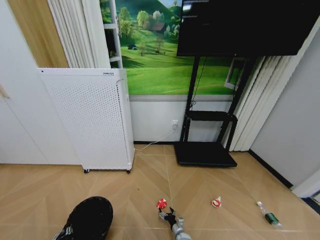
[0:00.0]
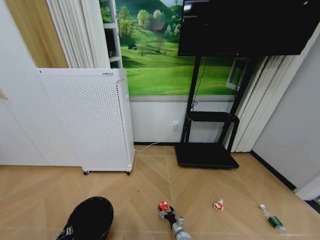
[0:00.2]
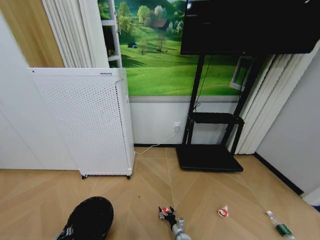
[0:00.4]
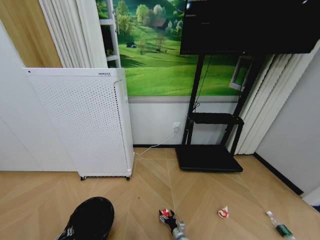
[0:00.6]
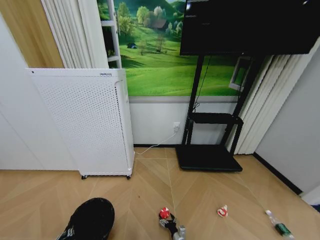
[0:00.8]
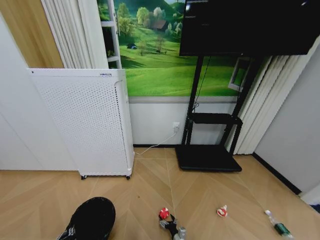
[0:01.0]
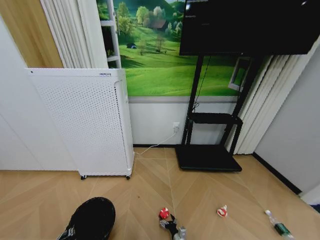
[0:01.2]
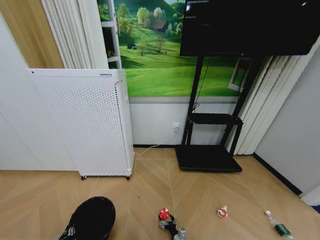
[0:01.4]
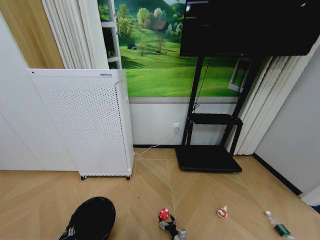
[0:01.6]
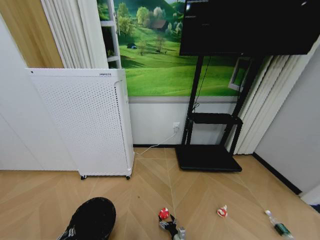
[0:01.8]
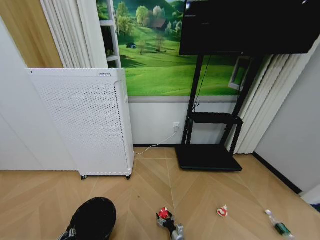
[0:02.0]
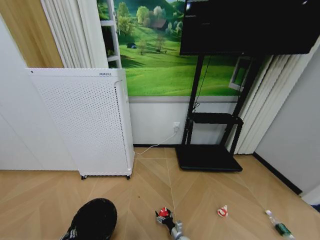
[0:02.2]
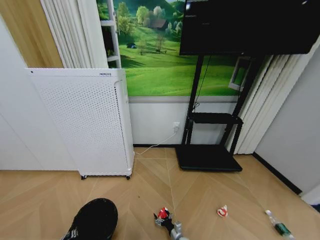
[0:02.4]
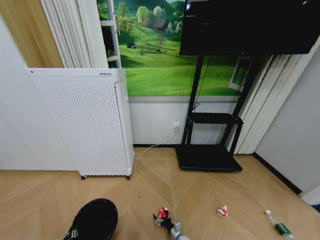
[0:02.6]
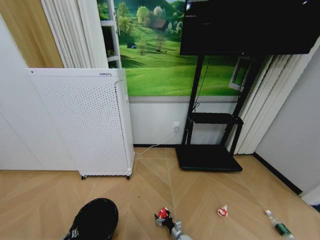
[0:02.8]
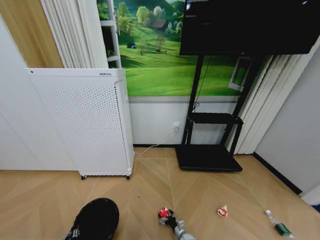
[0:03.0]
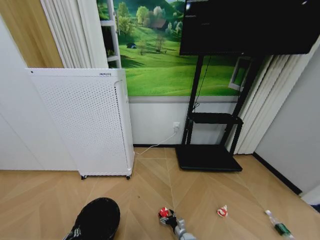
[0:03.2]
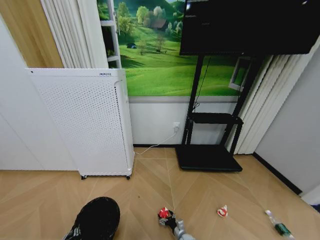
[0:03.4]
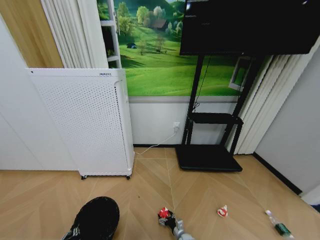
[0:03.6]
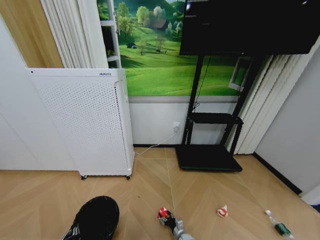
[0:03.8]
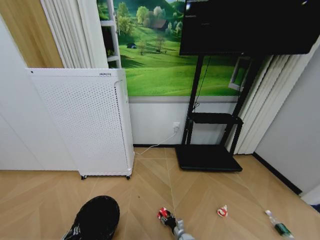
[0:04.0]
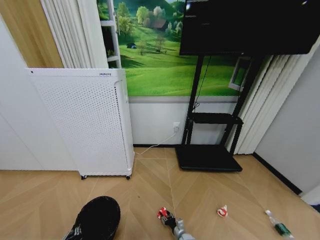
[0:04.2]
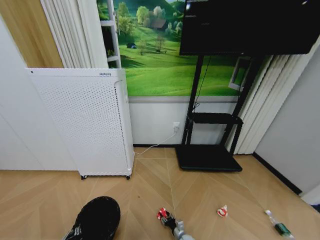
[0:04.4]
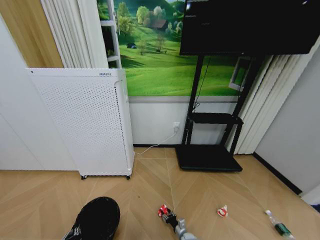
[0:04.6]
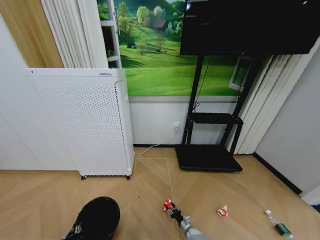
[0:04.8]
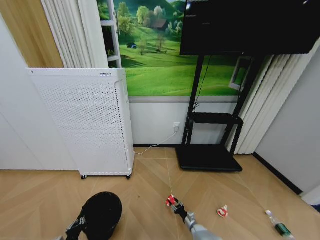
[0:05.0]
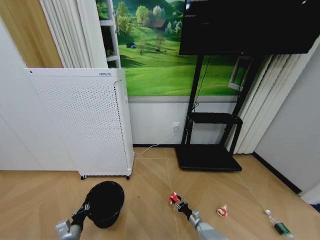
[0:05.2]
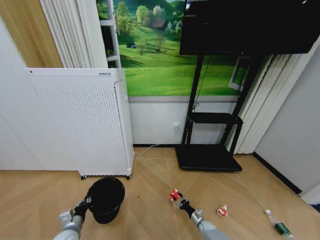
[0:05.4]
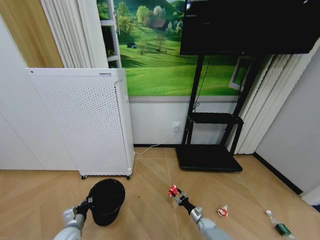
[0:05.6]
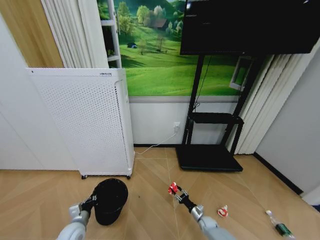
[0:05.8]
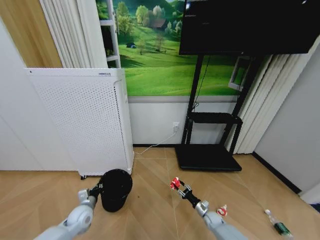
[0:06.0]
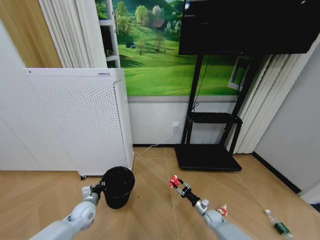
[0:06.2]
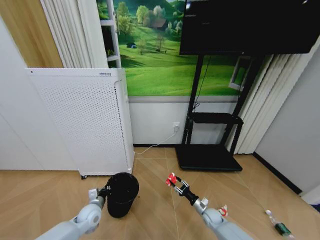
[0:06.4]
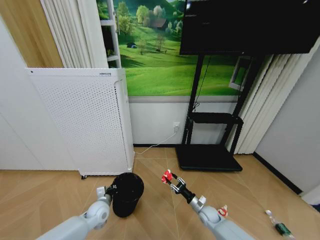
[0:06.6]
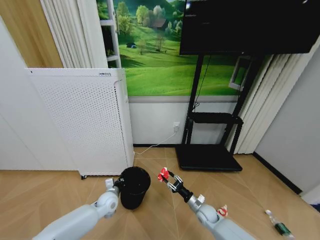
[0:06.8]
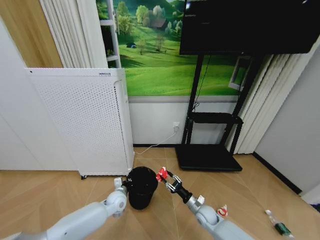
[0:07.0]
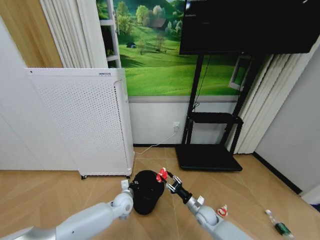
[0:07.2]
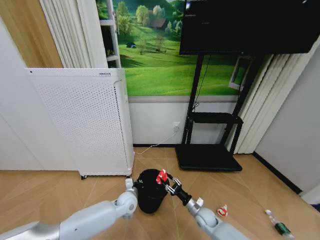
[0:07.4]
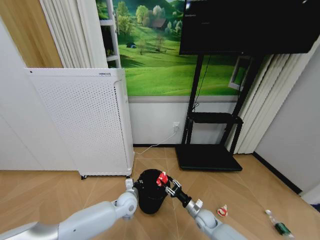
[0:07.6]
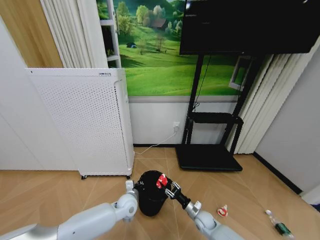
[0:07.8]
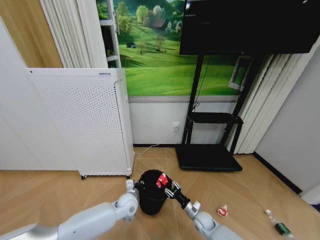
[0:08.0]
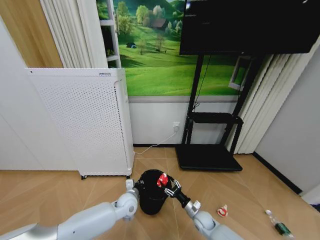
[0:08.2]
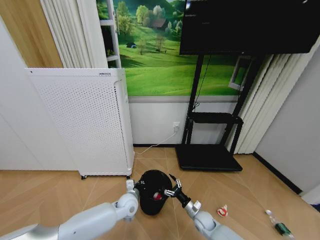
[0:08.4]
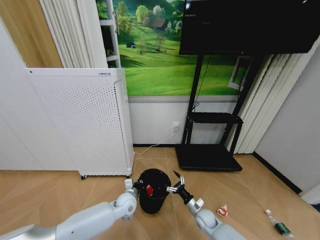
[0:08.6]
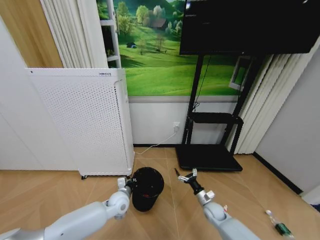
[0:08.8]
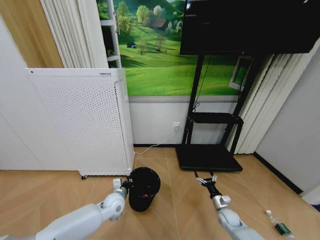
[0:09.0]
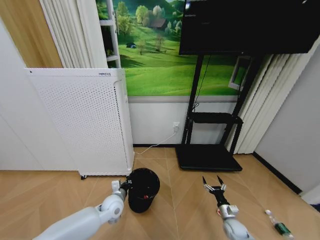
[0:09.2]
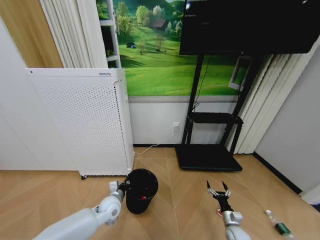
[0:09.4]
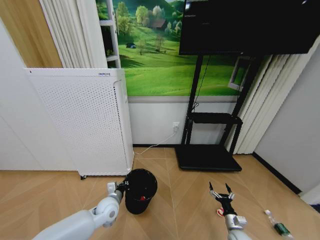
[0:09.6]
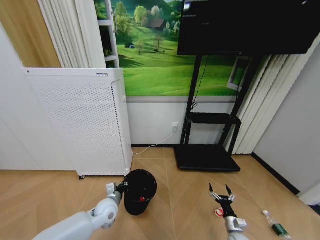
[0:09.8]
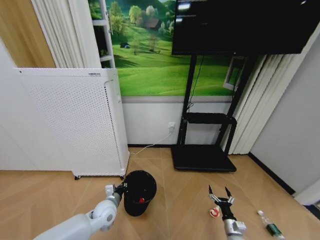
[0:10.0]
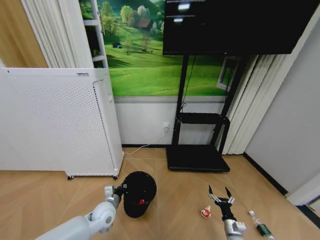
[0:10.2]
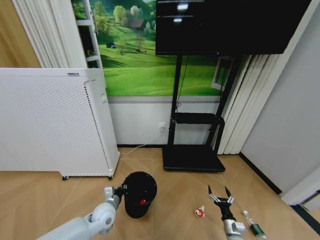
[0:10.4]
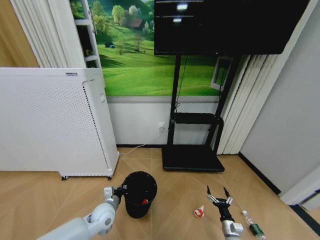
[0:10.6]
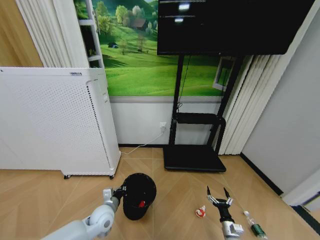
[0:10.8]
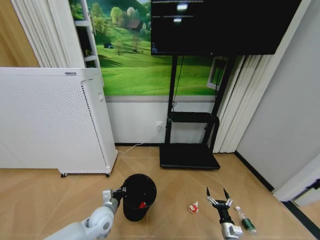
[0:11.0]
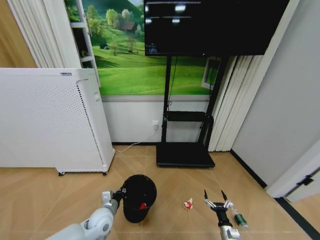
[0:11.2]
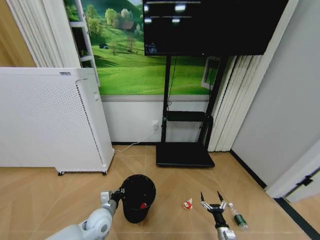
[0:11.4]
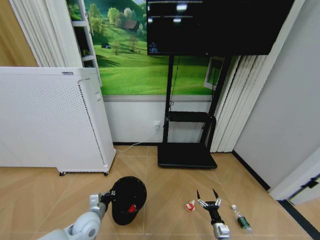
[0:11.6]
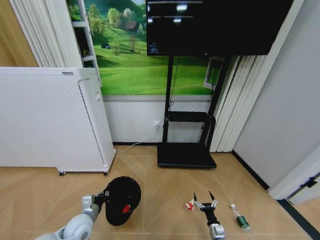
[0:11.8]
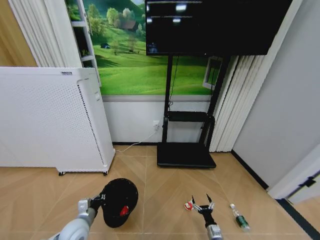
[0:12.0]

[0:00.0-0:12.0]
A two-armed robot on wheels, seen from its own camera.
Task of the whole recording: Pick up the trash bin and place the garbage on the floor into it.
0:00.0 to 0:01.6: The right gripper heads backward, covering some 5 cm.
0:01.6 to 0:03.0: The right gripper heads forward, covering roughly 5 cm.
0:04.4 to 0:06.0: The left gripper moves forward, approximately 20 cm. Meanwhile the right gripper heads to the right, upward and forward, covering about 20 cm.
0:06.0 to 0:07.6: The right gripper is displaced upward and to the left by approximately 10 cm. Meanwhile the left gripper shifts approximately 20 cm to the right.
0:07.6 to 0:09.0: The right gripper moves to the right, approximately 10 cm, and opens. Meanwhile the left gripper goes roughly 5 cm to the left.
0:09.0 to 0:10.4: The right gripper moves backward, roughly 10 cm. Meanwhile the left gripper shifts by roughly 5 cm.
0:10.4 to 0:12.0: The right gripper heads downward and to the left, covering approximately 10 cm; the left gripper heads to the left and backward, covering about 10 cm.

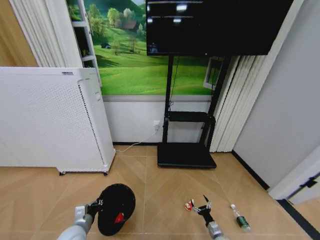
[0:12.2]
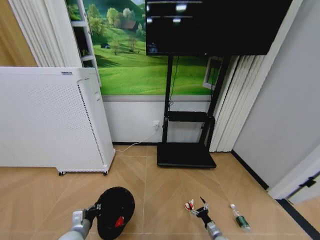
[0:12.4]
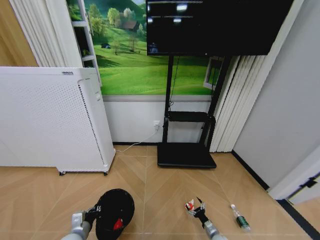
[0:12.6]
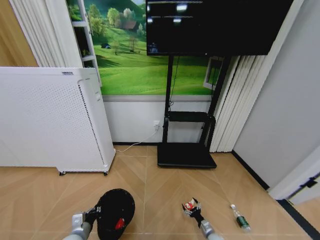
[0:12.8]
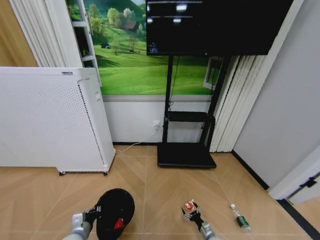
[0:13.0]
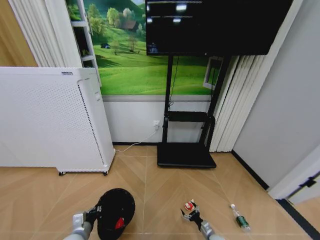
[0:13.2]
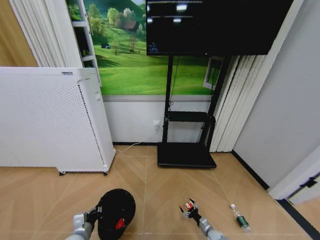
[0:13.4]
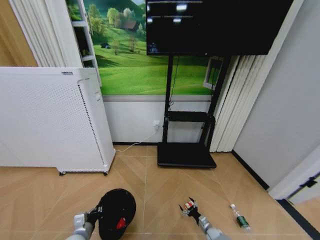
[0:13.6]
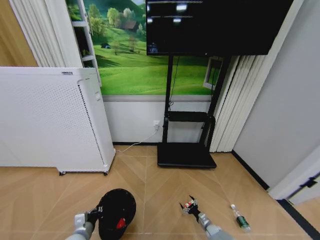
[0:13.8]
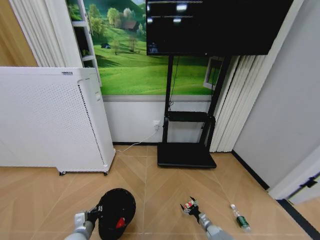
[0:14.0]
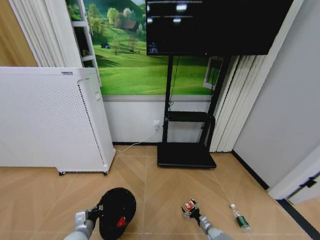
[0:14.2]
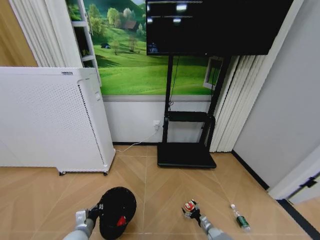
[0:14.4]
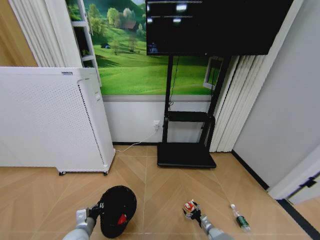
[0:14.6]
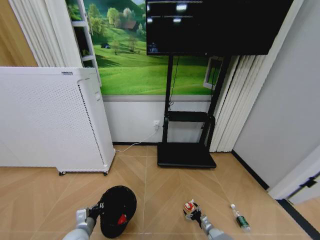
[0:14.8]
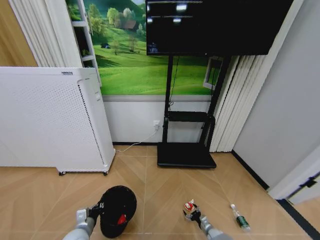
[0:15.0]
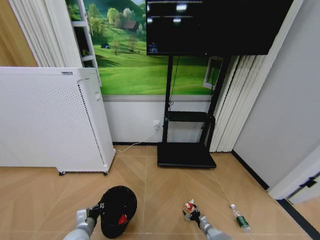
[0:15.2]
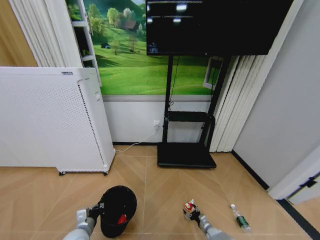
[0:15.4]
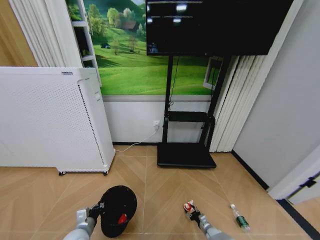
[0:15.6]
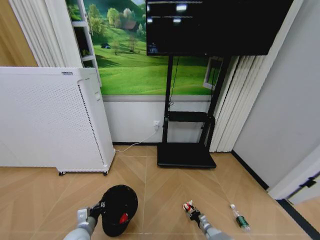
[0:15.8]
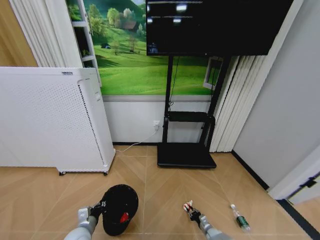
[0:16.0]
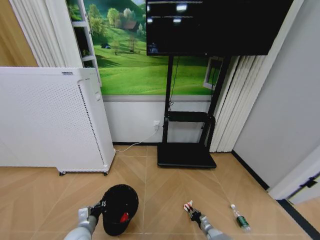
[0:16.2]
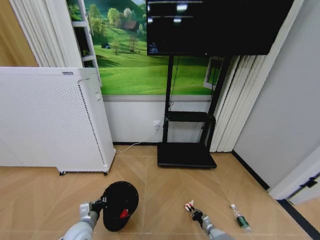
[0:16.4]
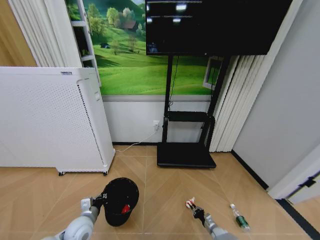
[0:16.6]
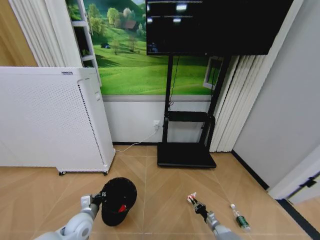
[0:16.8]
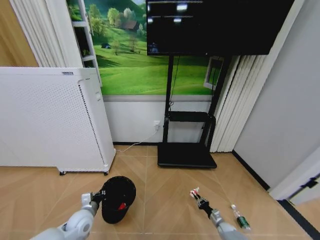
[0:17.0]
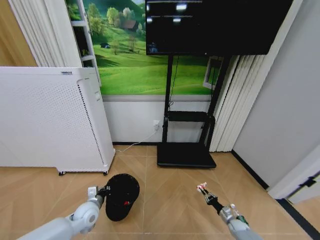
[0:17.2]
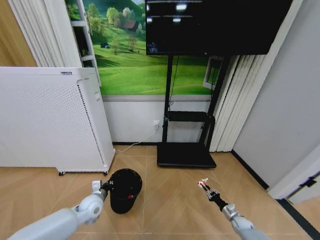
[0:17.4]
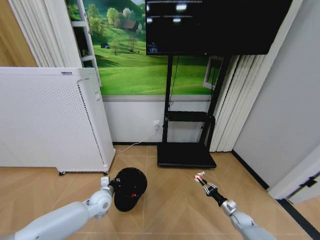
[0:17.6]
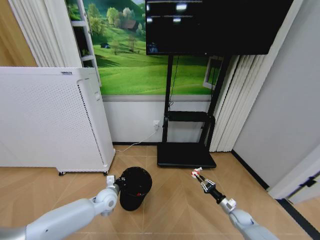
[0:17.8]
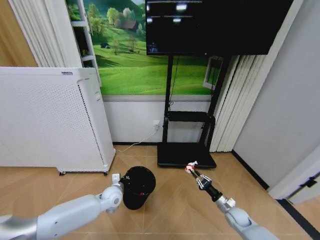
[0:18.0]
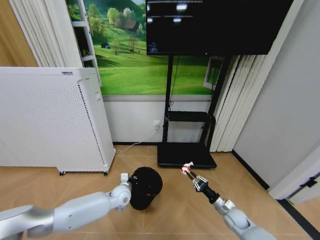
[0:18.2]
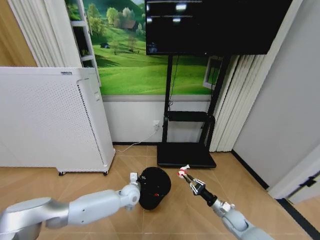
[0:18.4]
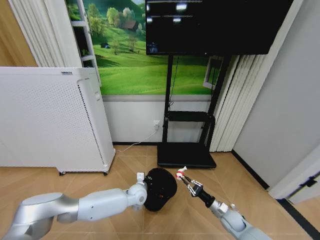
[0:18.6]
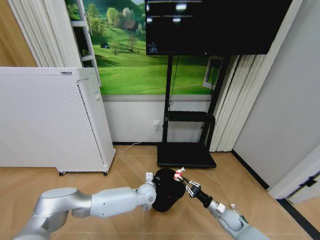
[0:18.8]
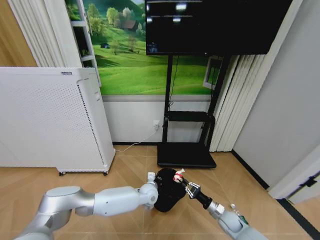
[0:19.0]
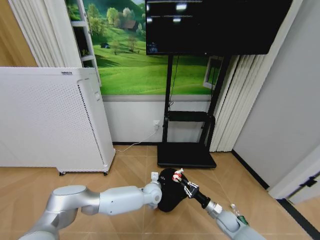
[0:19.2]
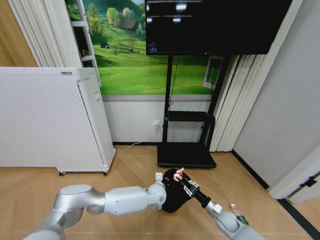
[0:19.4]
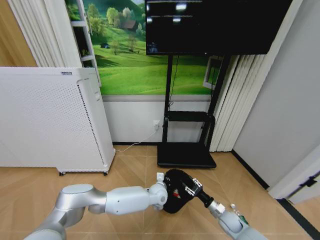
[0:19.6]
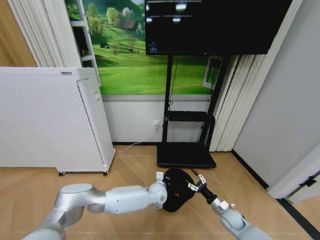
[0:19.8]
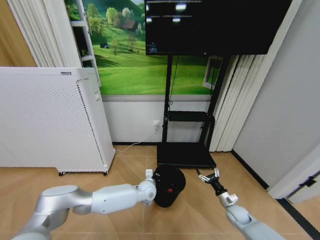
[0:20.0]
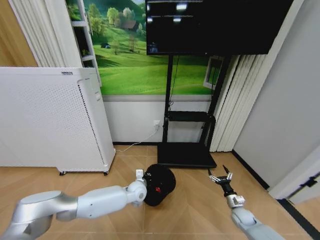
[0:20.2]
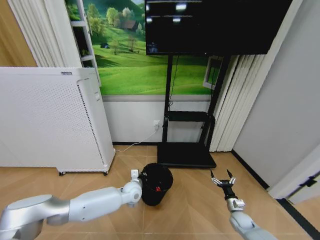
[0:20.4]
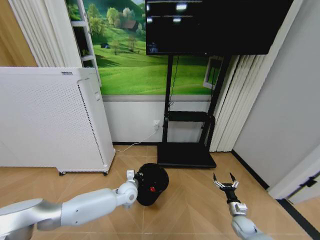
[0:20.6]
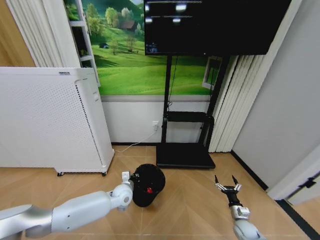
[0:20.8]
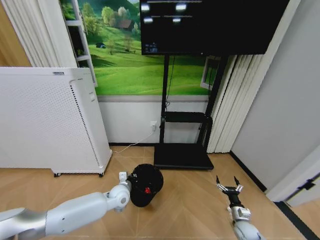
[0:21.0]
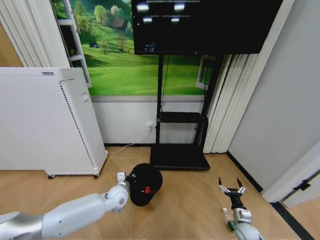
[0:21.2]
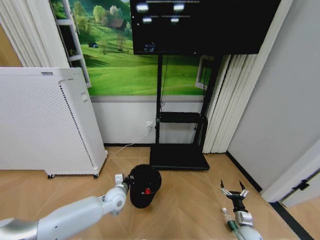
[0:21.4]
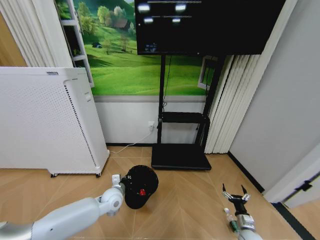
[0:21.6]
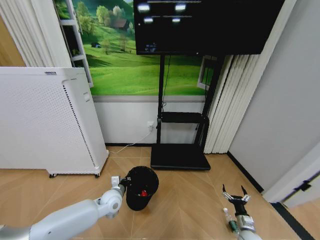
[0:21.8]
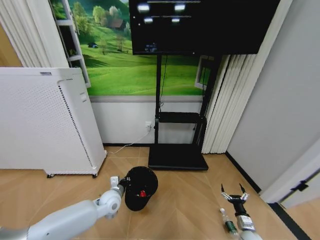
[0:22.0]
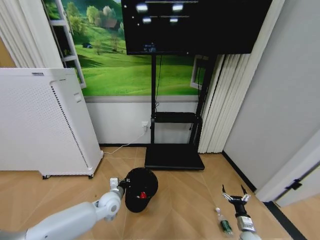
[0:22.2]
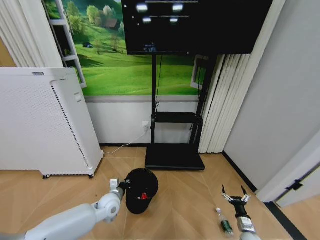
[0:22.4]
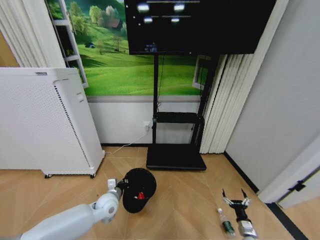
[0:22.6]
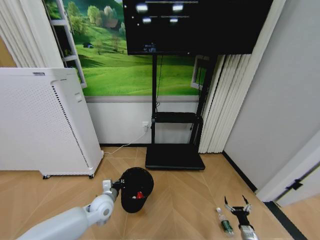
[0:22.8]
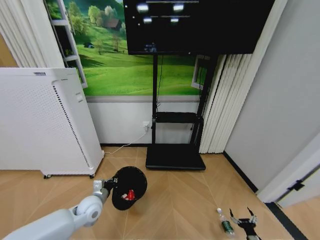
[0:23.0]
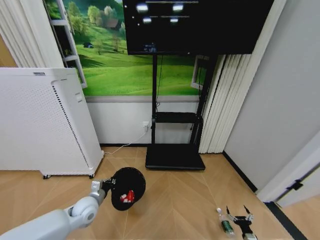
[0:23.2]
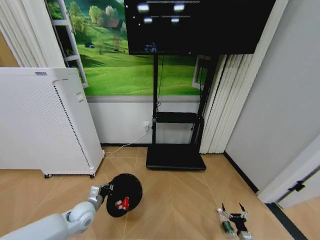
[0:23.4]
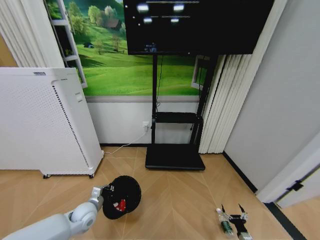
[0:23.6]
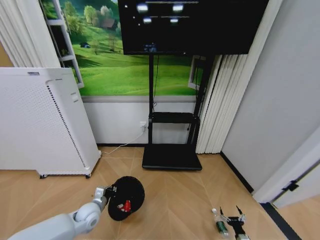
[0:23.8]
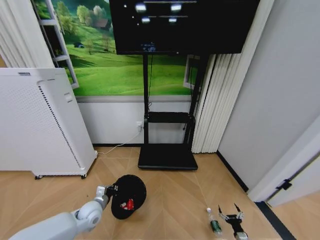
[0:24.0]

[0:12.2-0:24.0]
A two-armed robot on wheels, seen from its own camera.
Task of the whole recording: Pick up the trash bin and place the garbage on the floor into it.
0:12.2 to 0:13.6: The right gripper moves about 5 cm.
0:13.6 to 0:15.2: The grippers stay close to where they were, moving slightly.
0:15.2 to 0:16.6: The right gripper closes.
0:16.6 to 0:18.2: The left gripper heads forward and to the right, covering roughly 20 cm. Meanwhile the right gripper shifts about 20 cm upward.
0:18.2 to 0:19.6: The left gripper heads to the right, covering roughly 20 cm.
0:19.6 to 0:21.0: The left gripper moves to the left, roughly 20 cm. The right gripper travels to the right by approximately 10 cm, and opens its fingers.
0:21.0 to 0:22.6: The left gripper shifts by about 5 cm, while the right gripper moves about 5 cm.
0:22.6 to 0:24.0: The right gripper is displaced downward by approximately 10 cm. The left gripper is displaced to the left by approximately 5 cm.
